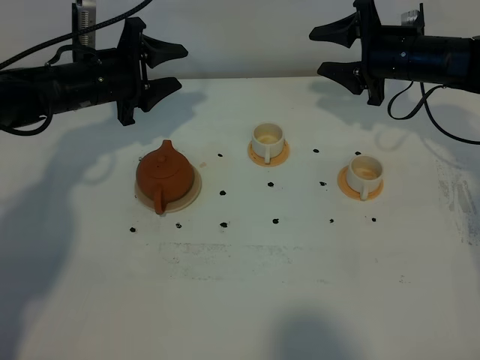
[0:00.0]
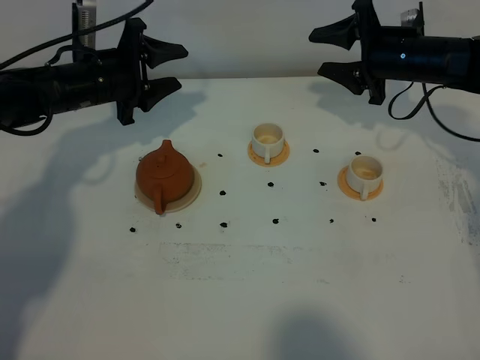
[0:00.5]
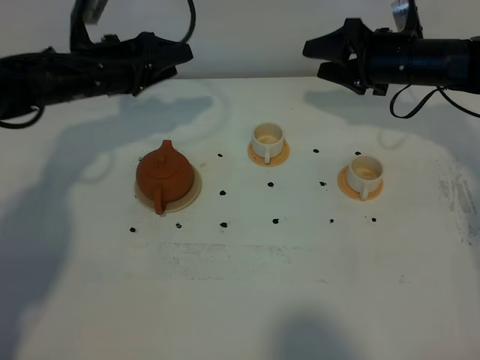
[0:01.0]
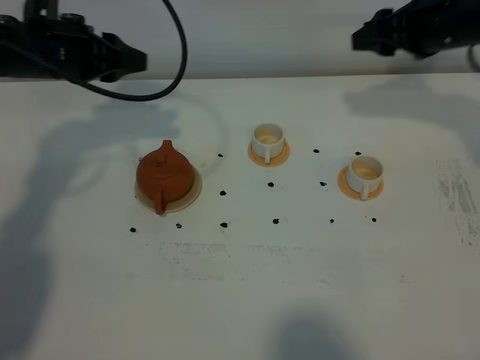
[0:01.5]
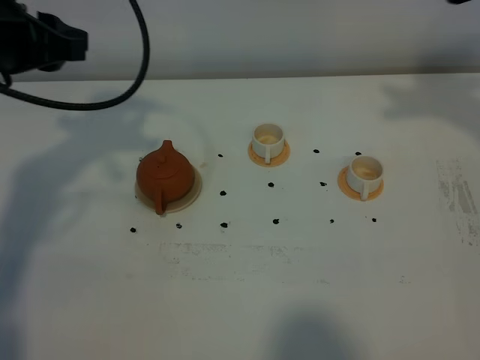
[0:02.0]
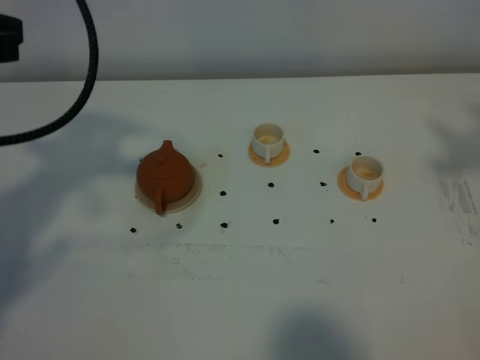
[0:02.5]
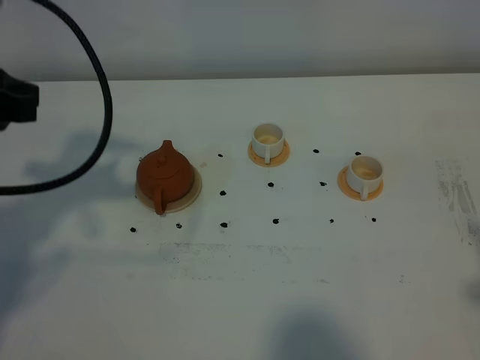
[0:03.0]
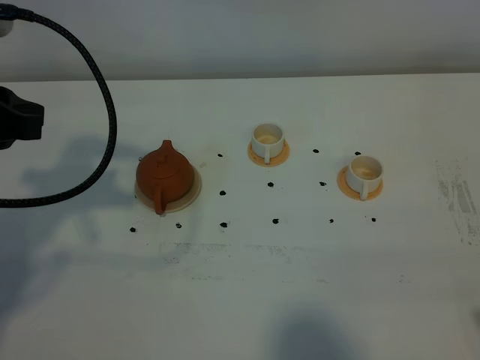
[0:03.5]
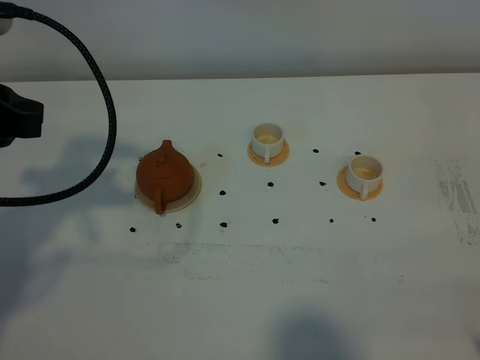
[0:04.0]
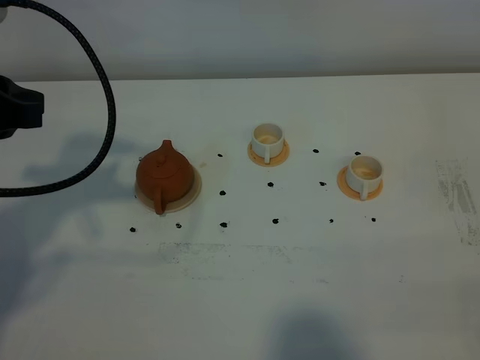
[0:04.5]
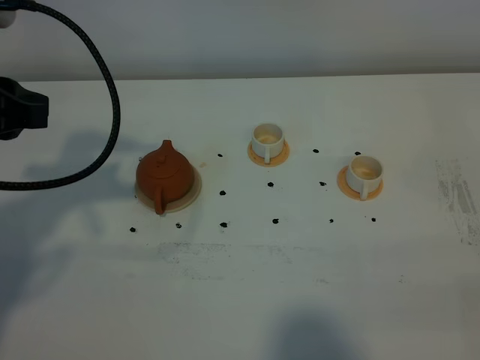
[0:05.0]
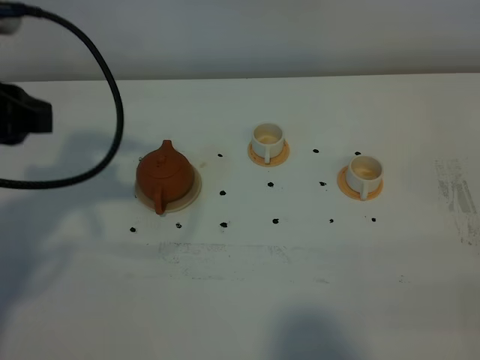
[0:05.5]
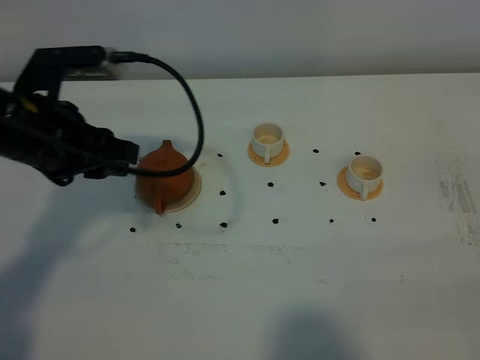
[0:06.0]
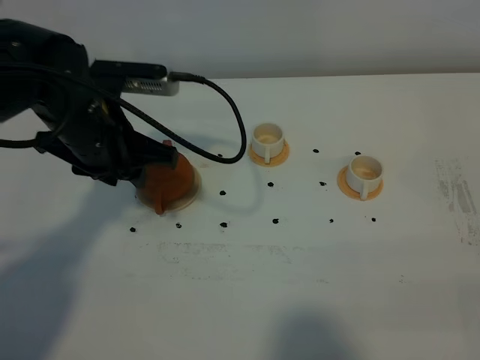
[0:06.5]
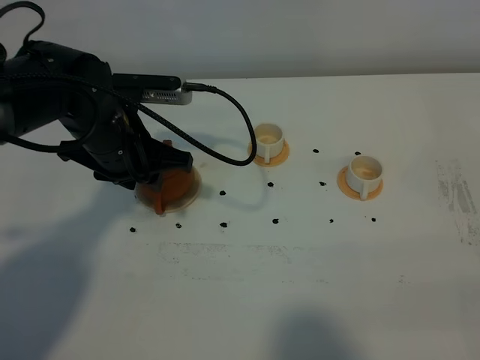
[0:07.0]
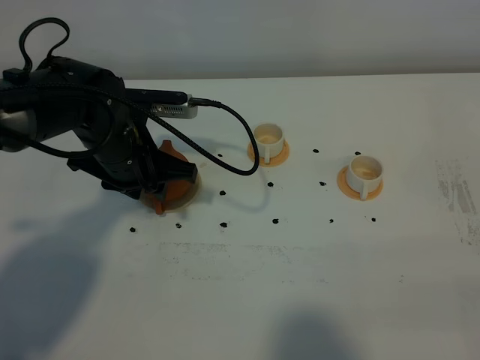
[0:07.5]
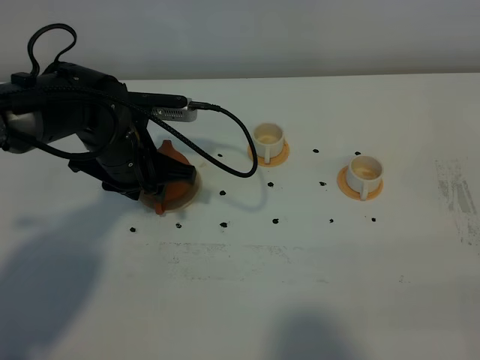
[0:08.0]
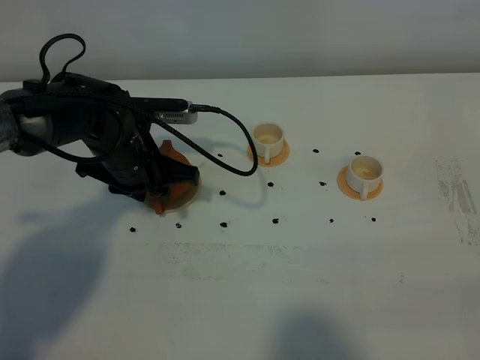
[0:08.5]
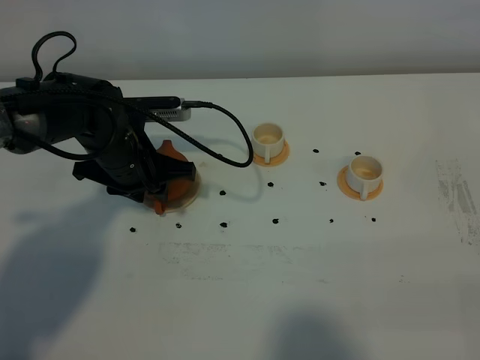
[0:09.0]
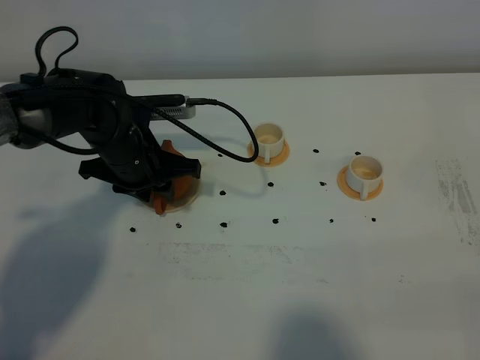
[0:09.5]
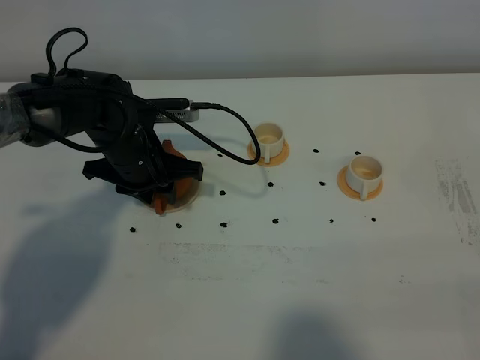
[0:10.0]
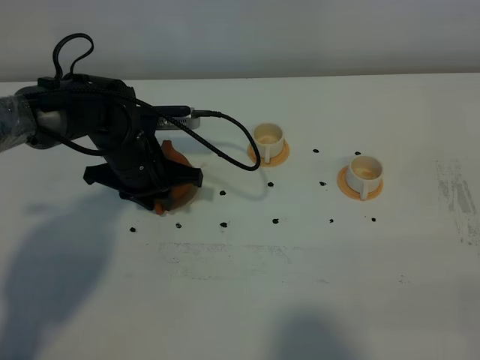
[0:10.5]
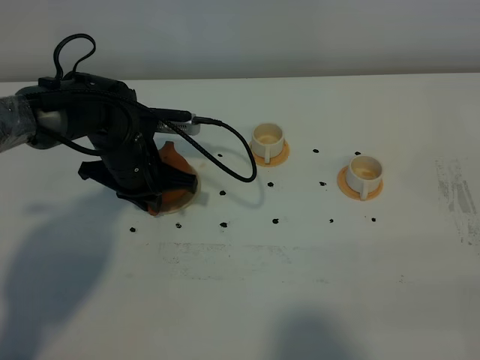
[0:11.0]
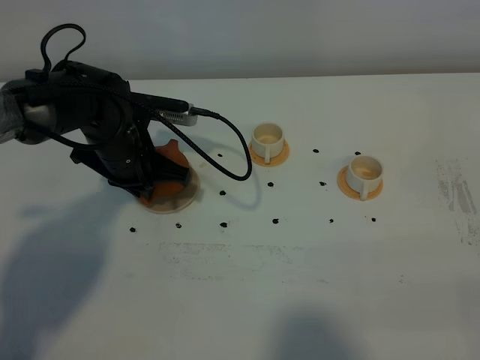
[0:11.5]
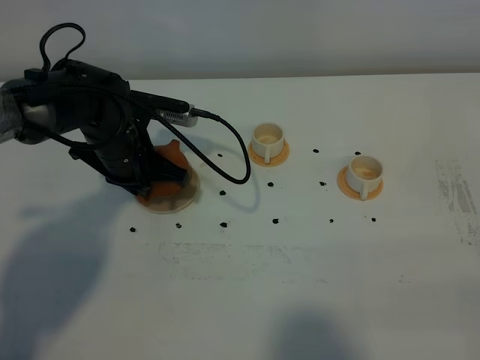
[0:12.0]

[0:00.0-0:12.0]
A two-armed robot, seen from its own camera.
Task of the whole recording: grasp the brown teapot and pour the tea into the two white teacups one by one, put the brown teapot back in its original place.
0:00.0 to 0:02.0: The two grippers go approximately 25 cm upward and backward. The left gripper closes up.
0:02.0 to 0:04.0: The left gripper moves backward, approximately 10 cm.
0:04.0 to 0:06.0: The left gripper is displaced downward, to the right and forward by roughly 10 cm.
0:06.0 to 0:08.0: The left gripper goes some 10 cm downward and forward.
0:08.0 to 0:10.0: The grippers make only small movements.
0:10.0 to 0:12.0: The left gripper closes.

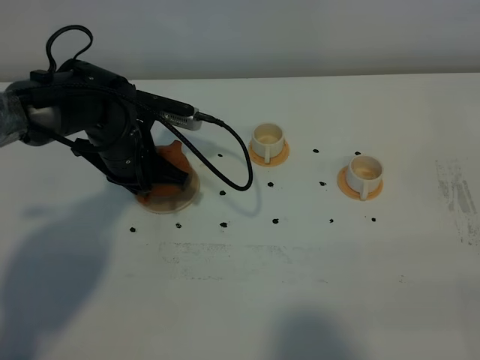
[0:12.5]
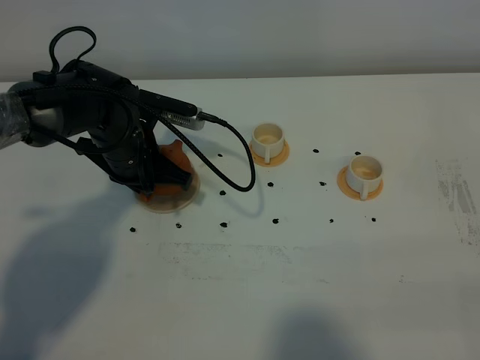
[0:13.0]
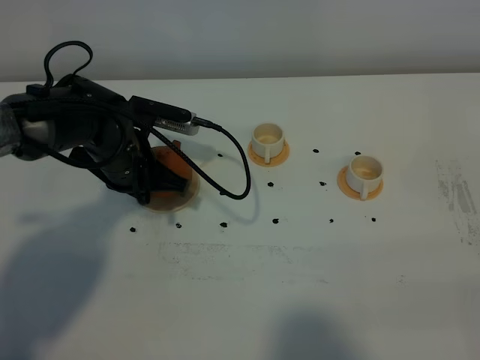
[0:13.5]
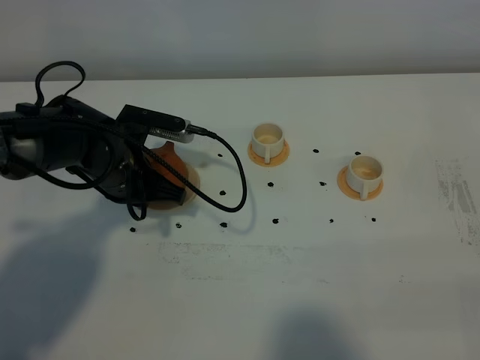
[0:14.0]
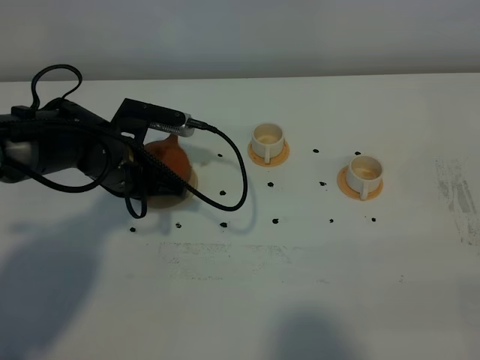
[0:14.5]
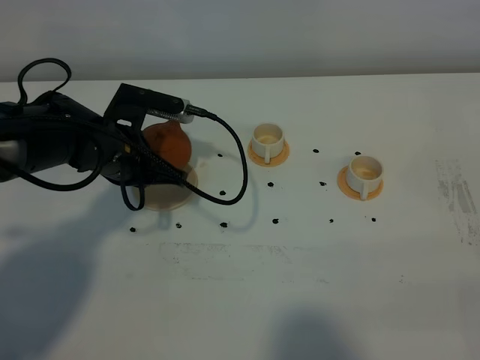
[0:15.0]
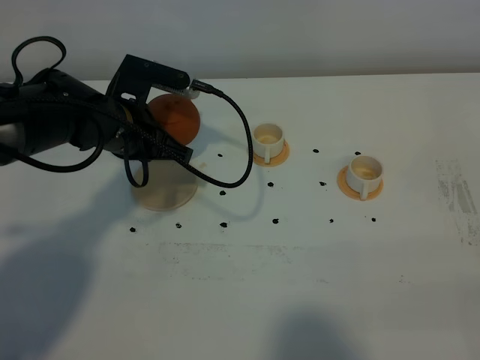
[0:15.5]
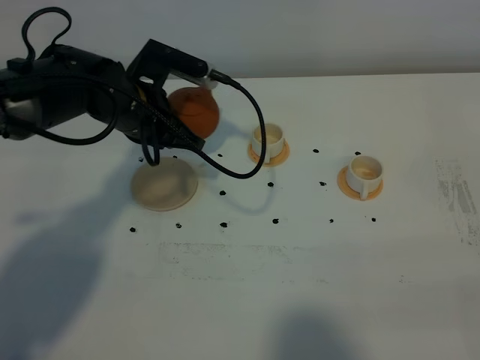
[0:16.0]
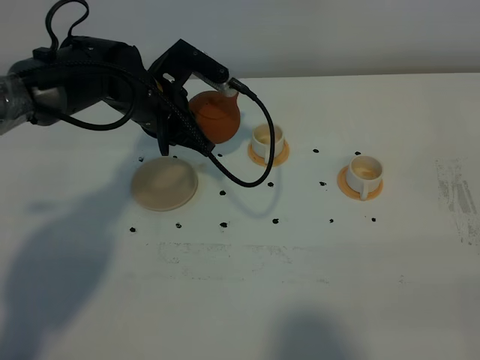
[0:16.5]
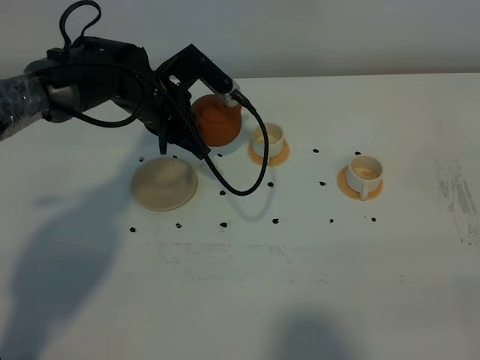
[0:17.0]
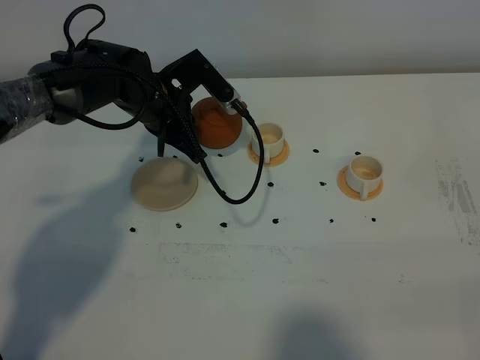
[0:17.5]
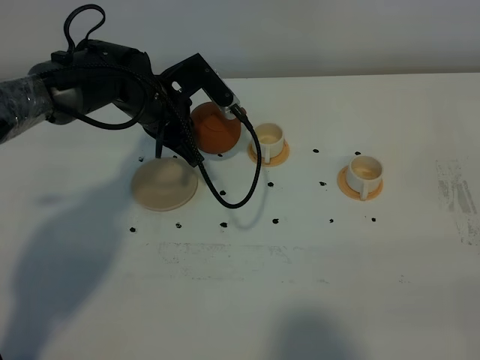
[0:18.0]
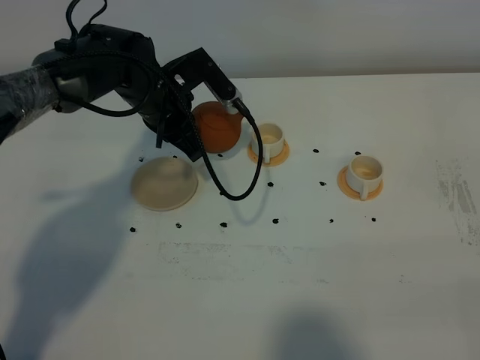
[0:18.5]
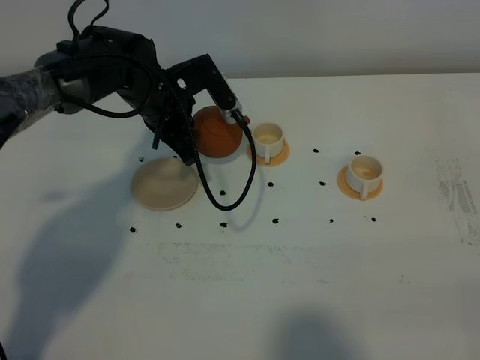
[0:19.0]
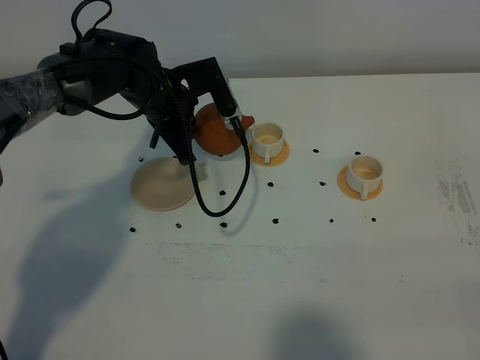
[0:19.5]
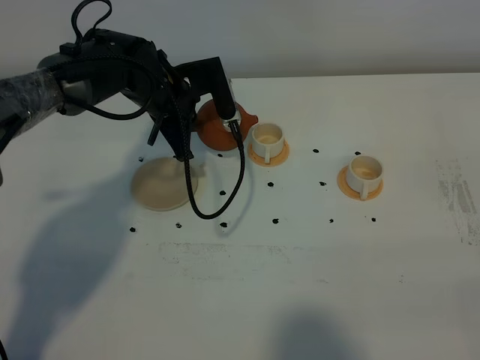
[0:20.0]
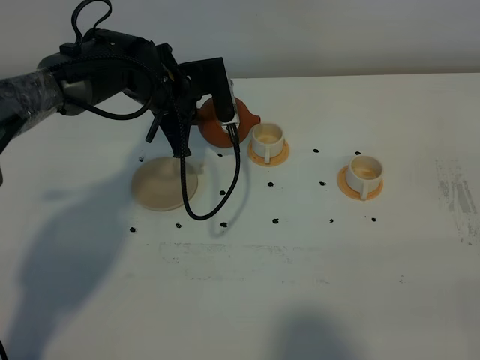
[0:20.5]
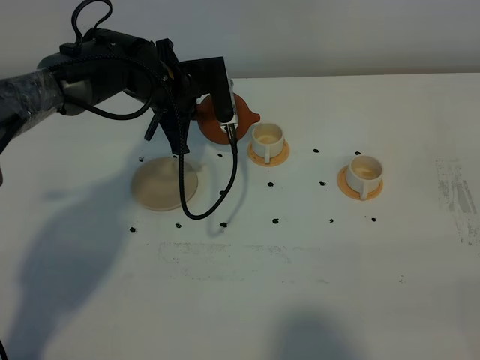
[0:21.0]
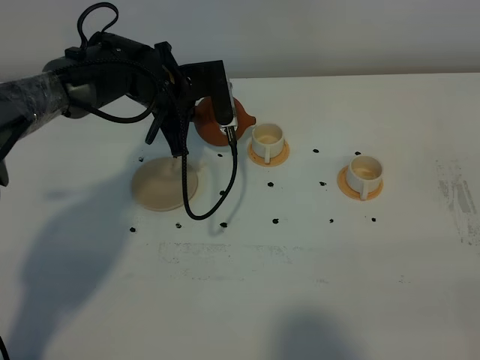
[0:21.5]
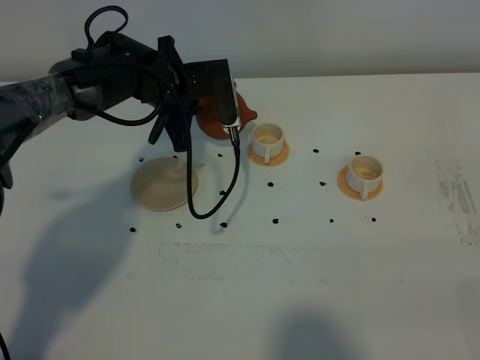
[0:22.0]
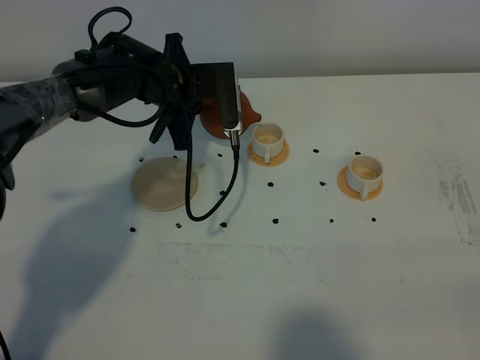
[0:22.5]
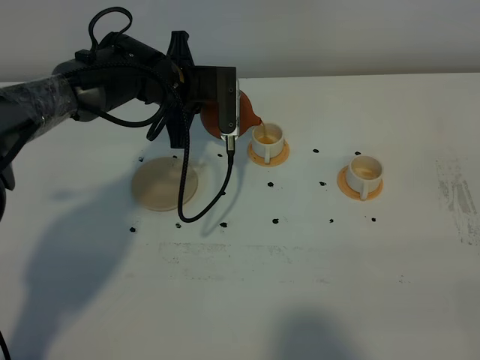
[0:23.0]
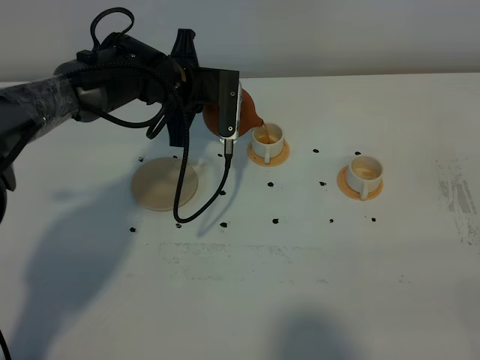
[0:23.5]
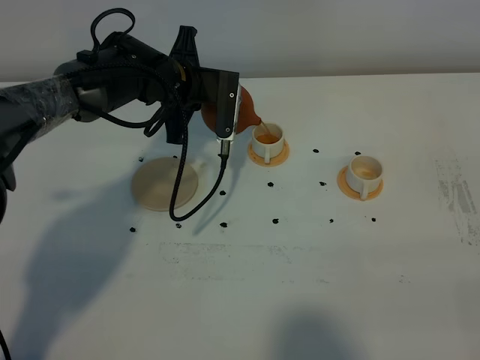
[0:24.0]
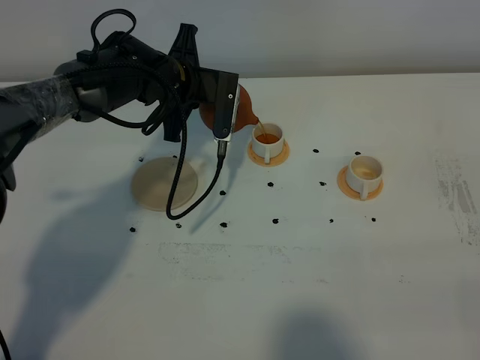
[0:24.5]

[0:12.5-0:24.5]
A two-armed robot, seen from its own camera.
Task of the whole recording: grasp the brown teapot and pour the tea into the two white teacups one by one, put the brown teapot back in its original place.
Step, 0:12.5 to 0:14.5: Pick up the teapot with the left gripper.
0:12.5 to 0:14.5: The grippers stay close to where they were, moving slightly.
0:14.5 to 0:16.5: The left gripper travels forward by approximately 5 cm.
0:16.5 to 0:18.5: The grippers move only a little.
0:20.5 to 0:22.5: The grippers move only a little.
0:22.5 to 0:24.5: The grippers move only a little.

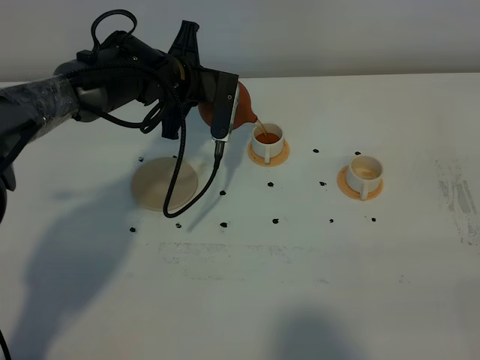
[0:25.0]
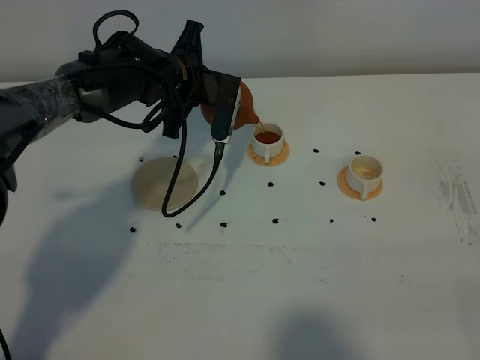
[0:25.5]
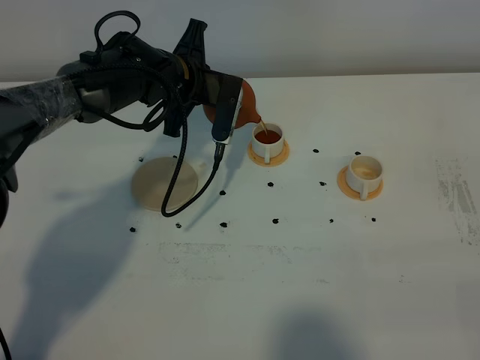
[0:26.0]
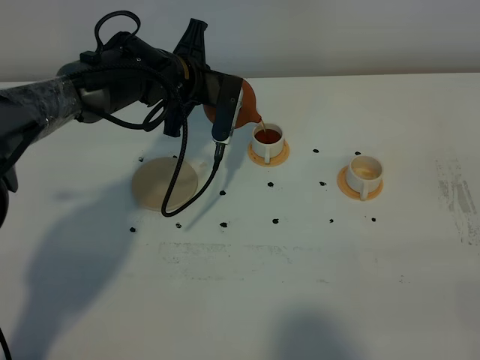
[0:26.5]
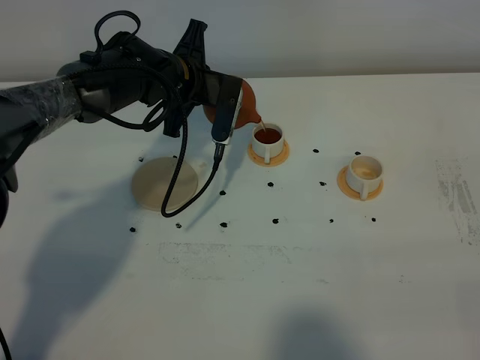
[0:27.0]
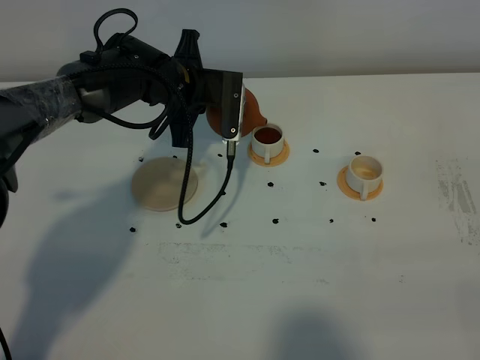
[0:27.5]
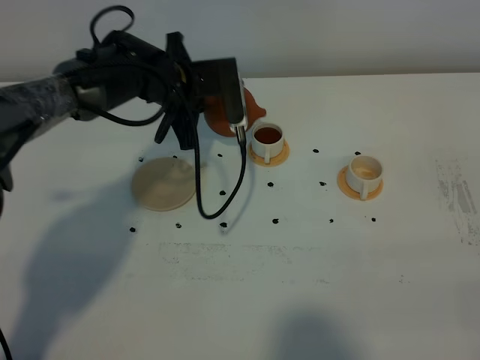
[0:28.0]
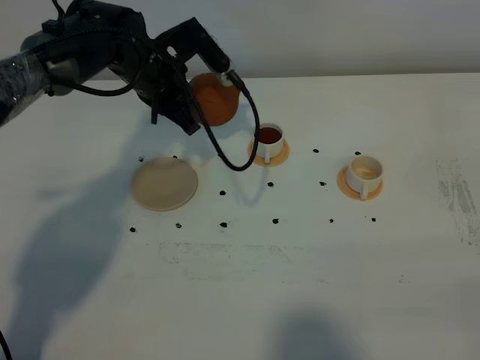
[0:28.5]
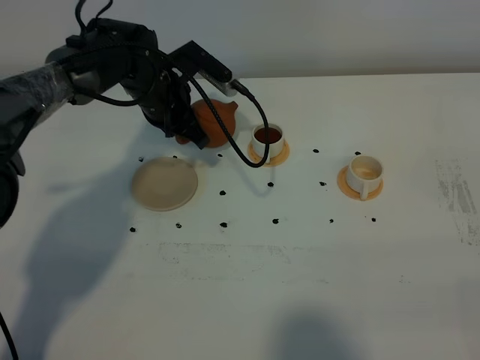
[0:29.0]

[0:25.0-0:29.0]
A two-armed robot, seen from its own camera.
Task of the whole recording: grasp the brown teapot and pour the tea into the two white teacups one by one, put the brown teapot back in its original place.
Step, 0:25.0 to 0:27.5: Pour tea into the teacup with the left gripper.
0:25.0 to 0:27.0: Neither gripper changes place.
